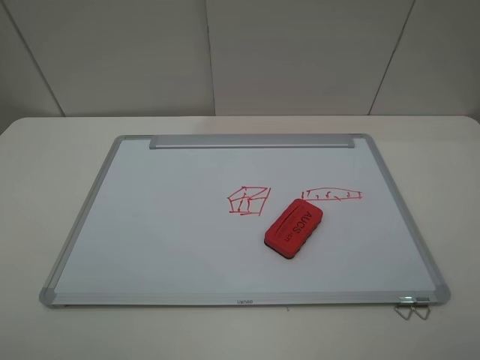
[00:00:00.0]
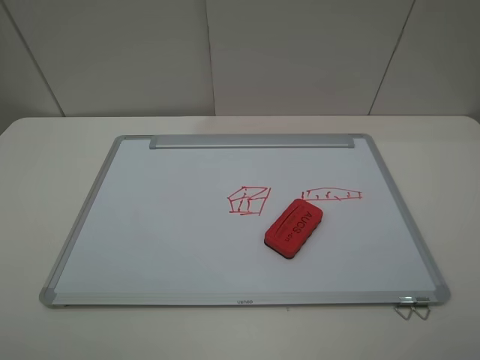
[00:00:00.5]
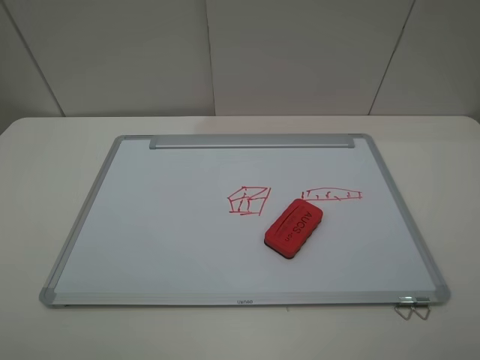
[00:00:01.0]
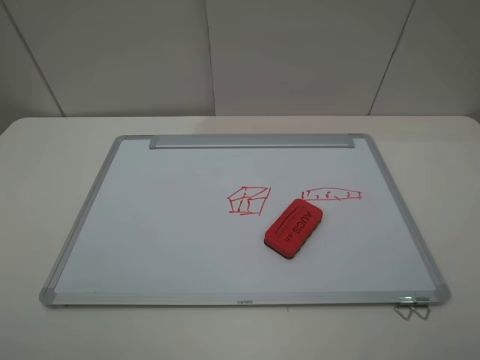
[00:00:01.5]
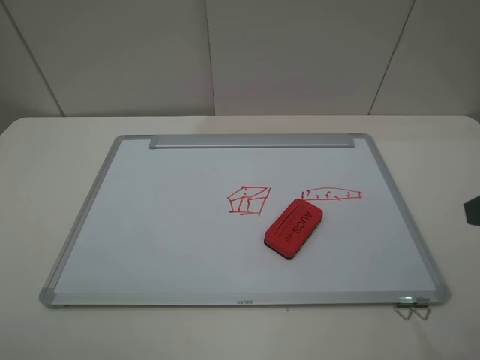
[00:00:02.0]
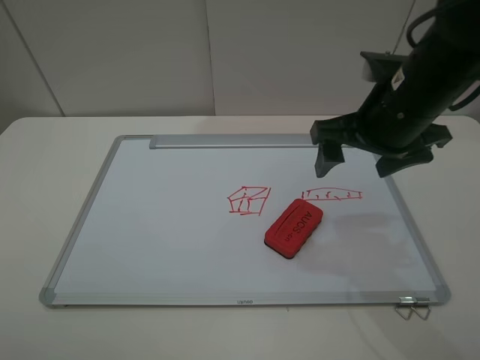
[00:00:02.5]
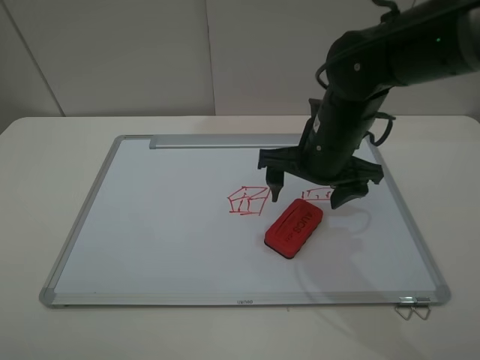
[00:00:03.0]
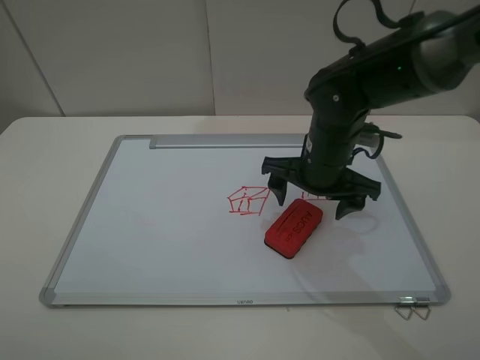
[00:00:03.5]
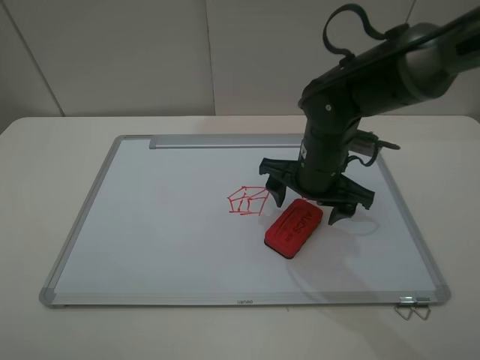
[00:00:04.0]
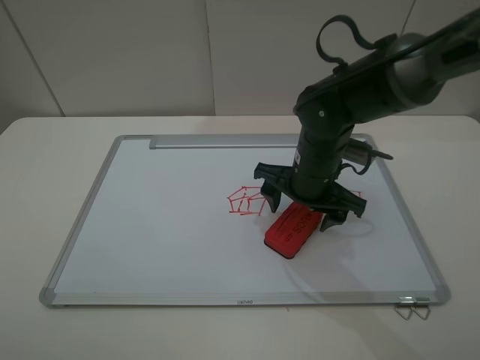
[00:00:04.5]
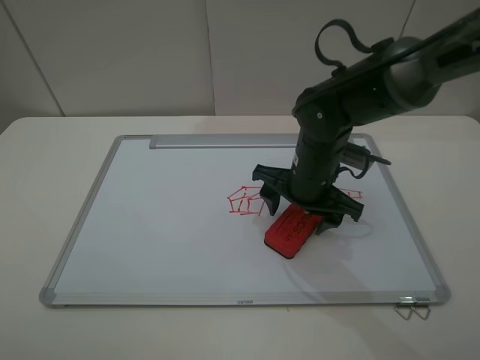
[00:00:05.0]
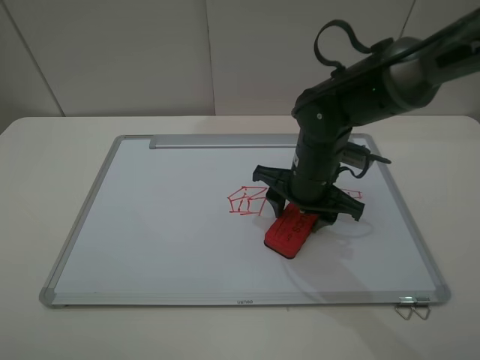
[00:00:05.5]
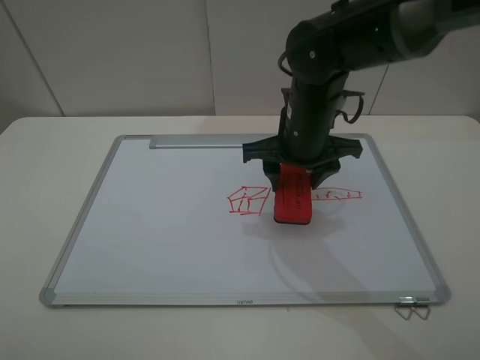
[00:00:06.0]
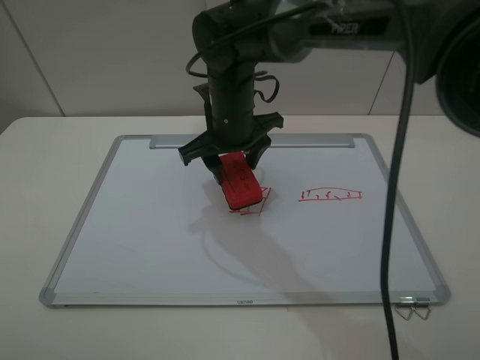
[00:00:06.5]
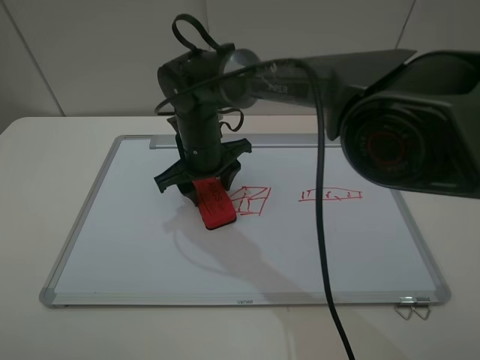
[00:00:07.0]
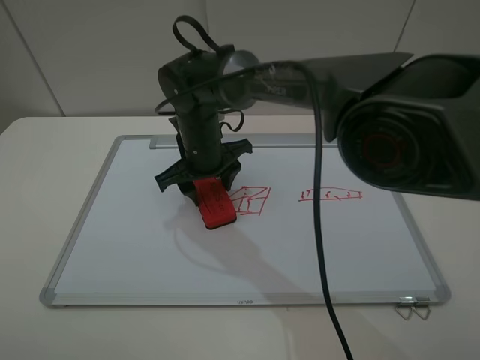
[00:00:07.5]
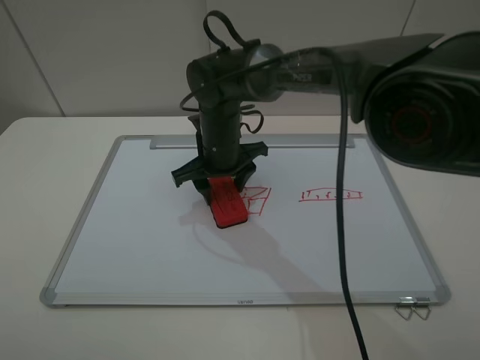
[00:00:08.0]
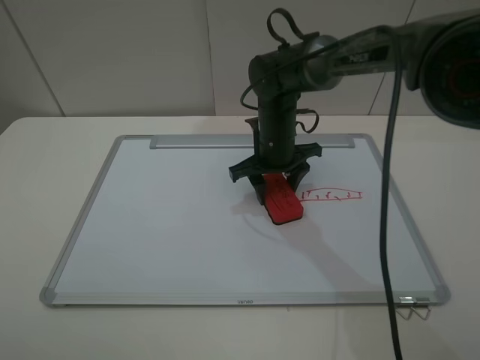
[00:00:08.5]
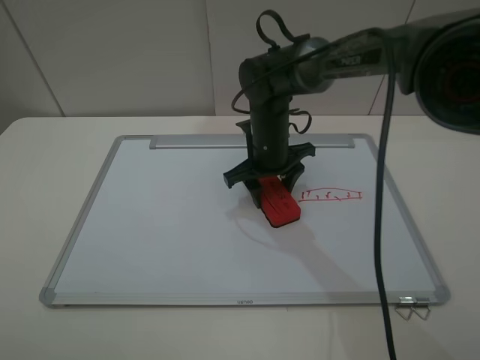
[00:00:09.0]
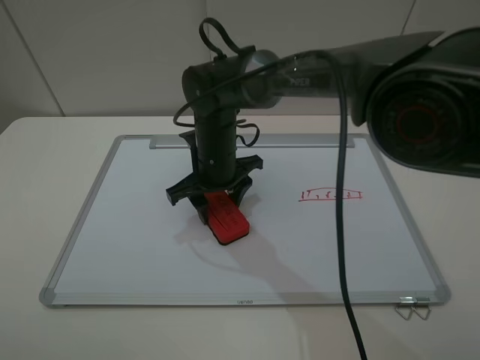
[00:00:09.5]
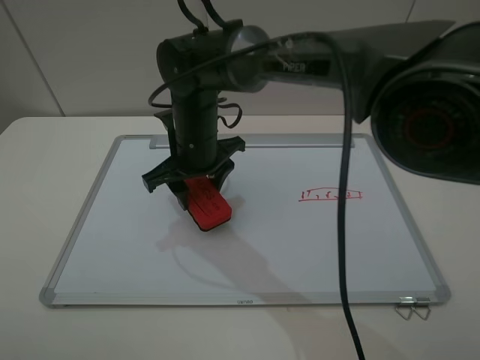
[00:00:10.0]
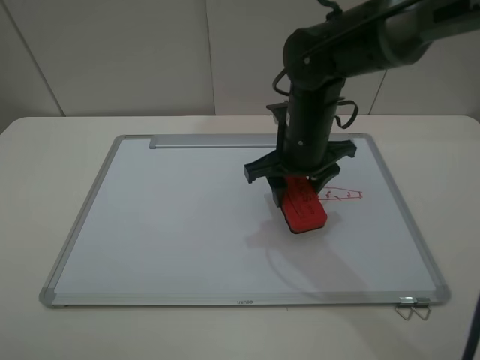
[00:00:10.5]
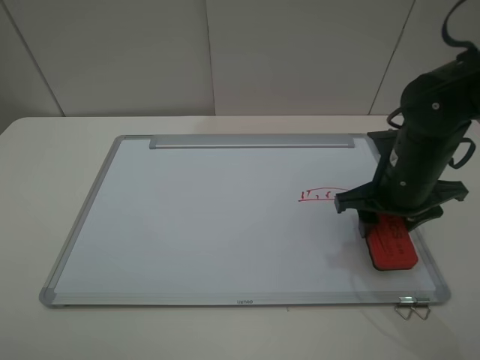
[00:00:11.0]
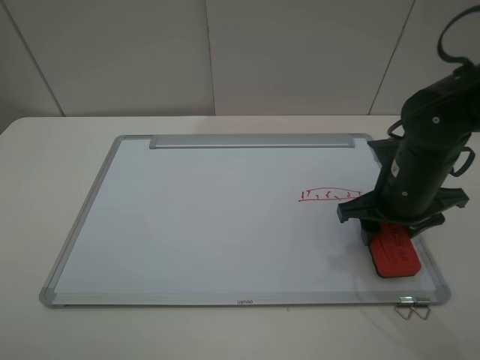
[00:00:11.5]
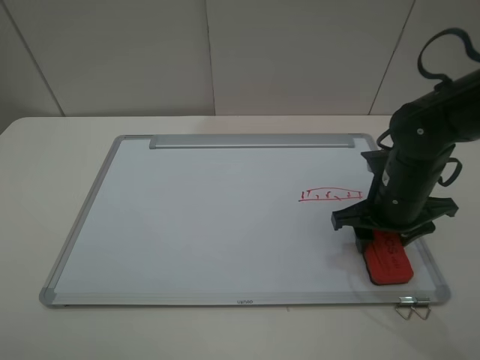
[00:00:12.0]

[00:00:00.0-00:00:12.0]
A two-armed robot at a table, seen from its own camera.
Step, 00:00:00.0 to 00:00:05.0: Grasp the eraser with the right gripper.
Step, 00:00:05.5 to 00:00:10.0: Grasp the eraser and wipe the blackboard with the right gripper.
00:00:02.0 to 00:00:04.0: The right gripper is displaced to the left, forward and downward by roughly 30 cm.
00:00:04.0 to 00:00:06.0: The right gripper ends up approximately 5 cm from where it was, and closes up.
00:00:06.0 to 00:00:08.0: The right gripper is displaced to the left and downward by approximately 15 cm.
00:00:08.0 to 00:00:10.0: The right gripper reaches about 10 cm to the right, then returns.
00:00:10.0 to 00:00:12.0: The right gripper is displaced to the right by approximately 25 cm.

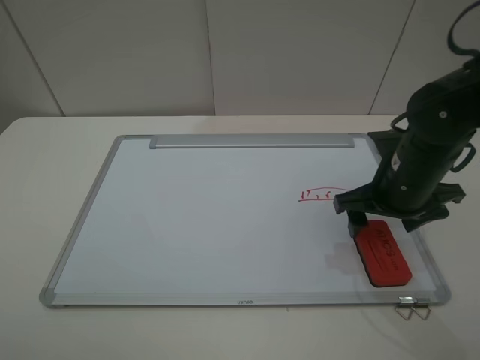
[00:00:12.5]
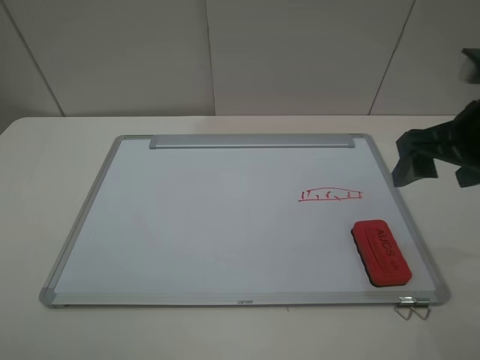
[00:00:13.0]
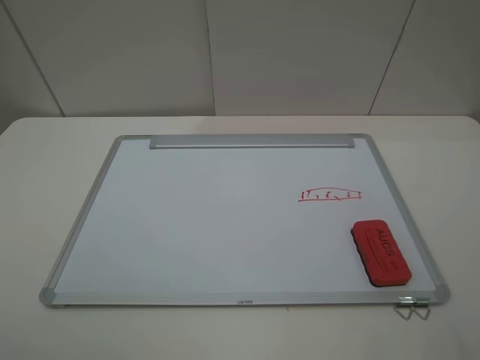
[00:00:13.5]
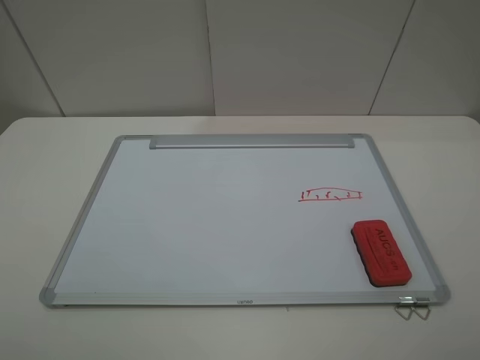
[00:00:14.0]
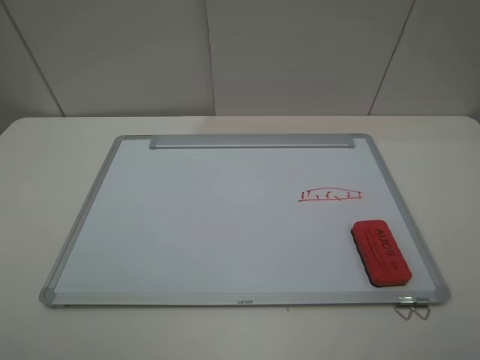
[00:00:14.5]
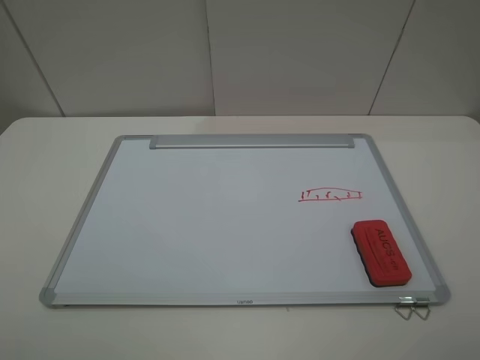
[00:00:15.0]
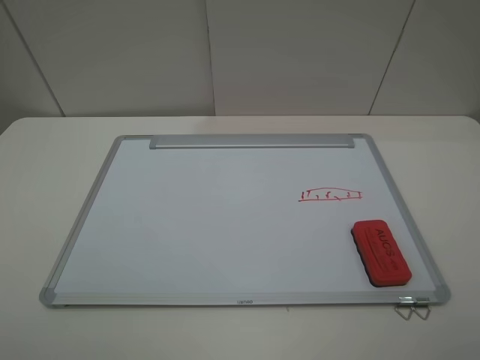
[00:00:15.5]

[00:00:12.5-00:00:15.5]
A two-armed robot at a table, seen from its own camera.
00:00:12.5 to 00:00:14.0: The right gripper heads backward and upward, covering about 30 cm.

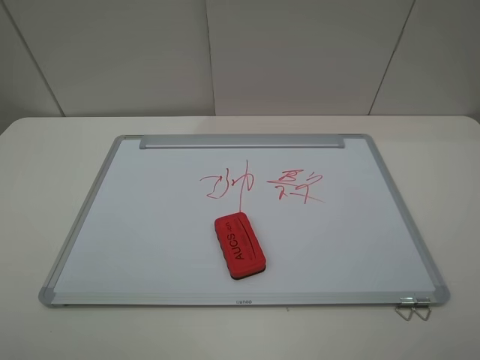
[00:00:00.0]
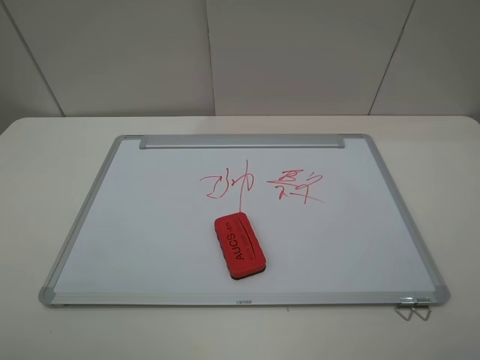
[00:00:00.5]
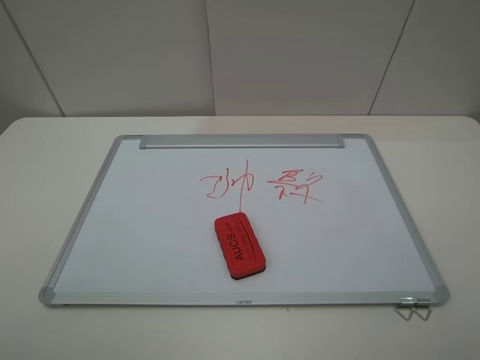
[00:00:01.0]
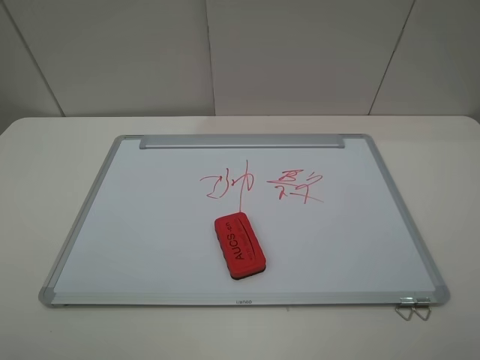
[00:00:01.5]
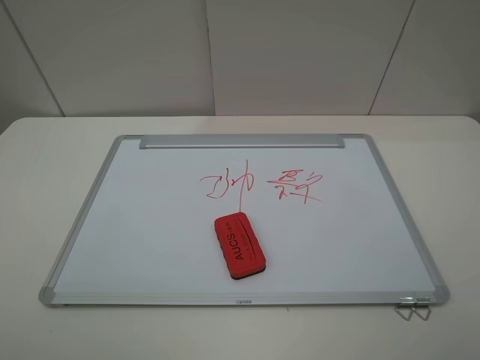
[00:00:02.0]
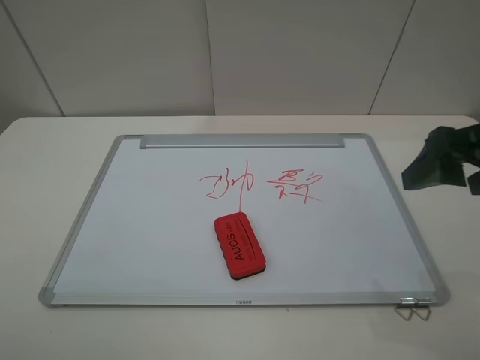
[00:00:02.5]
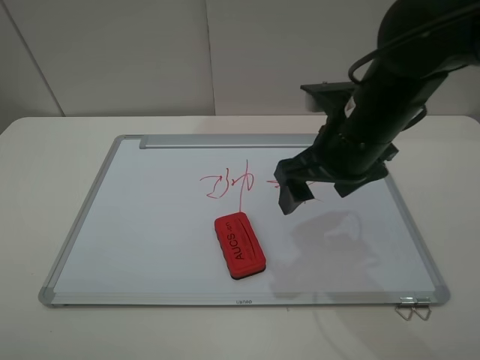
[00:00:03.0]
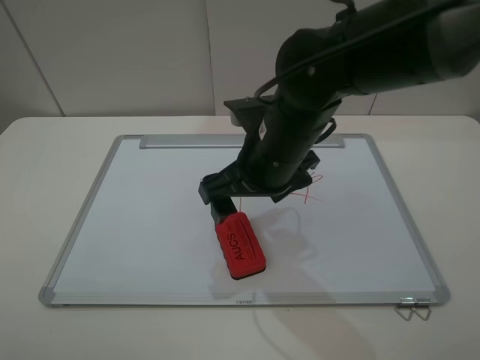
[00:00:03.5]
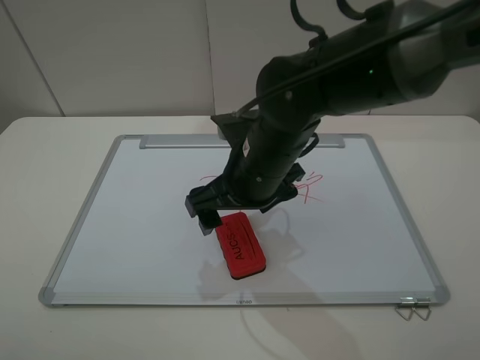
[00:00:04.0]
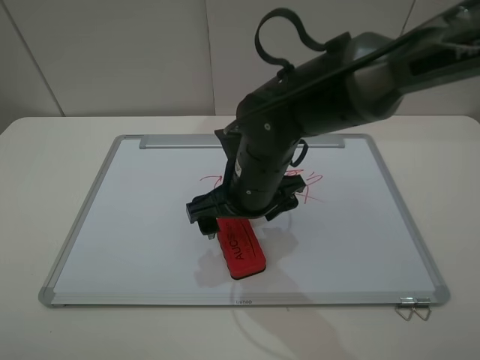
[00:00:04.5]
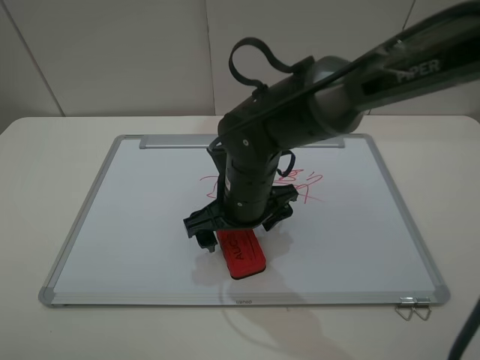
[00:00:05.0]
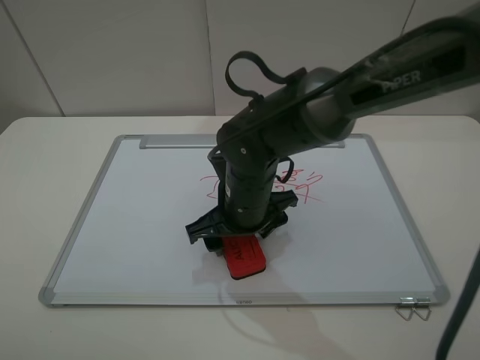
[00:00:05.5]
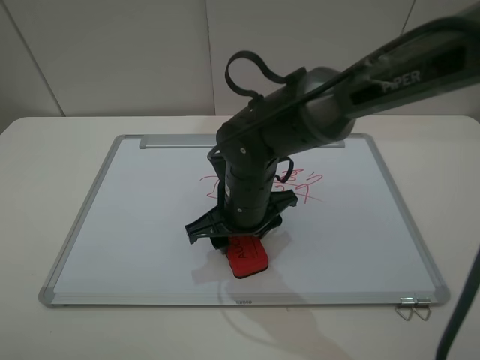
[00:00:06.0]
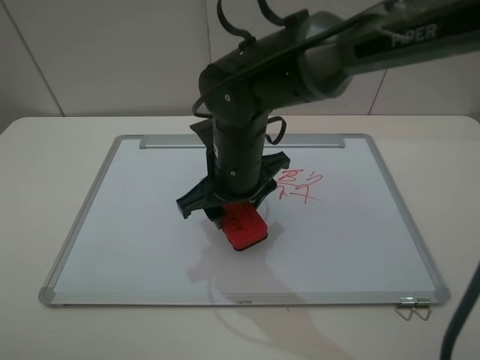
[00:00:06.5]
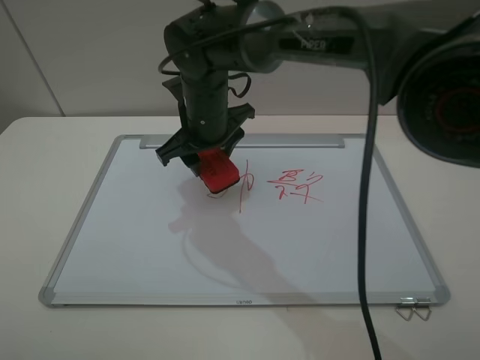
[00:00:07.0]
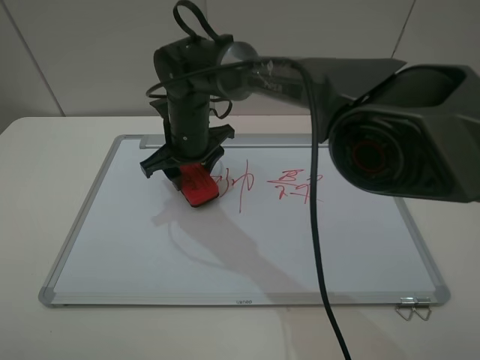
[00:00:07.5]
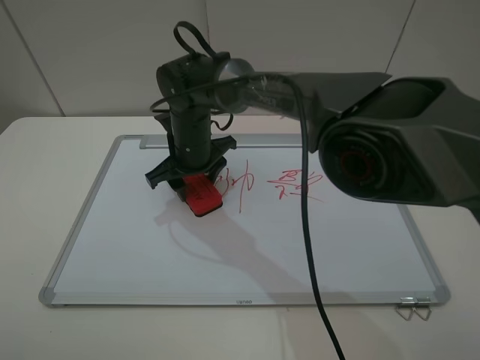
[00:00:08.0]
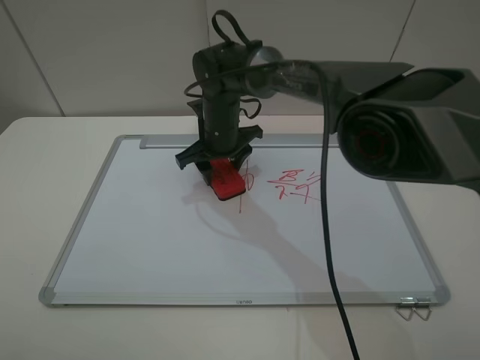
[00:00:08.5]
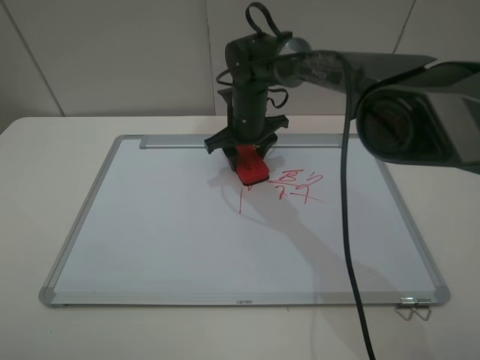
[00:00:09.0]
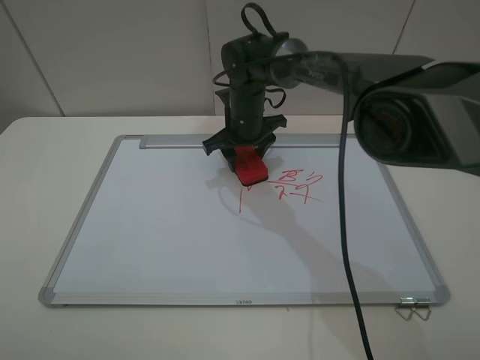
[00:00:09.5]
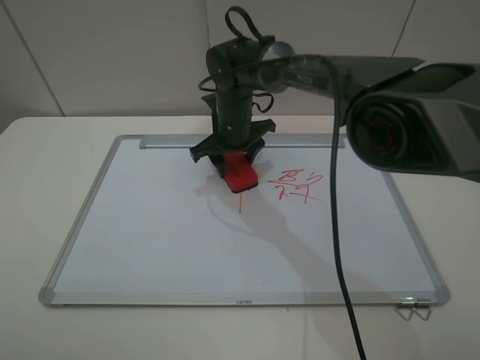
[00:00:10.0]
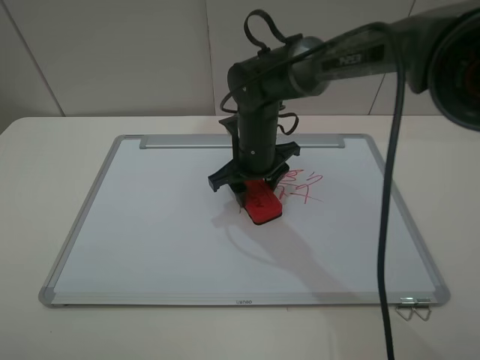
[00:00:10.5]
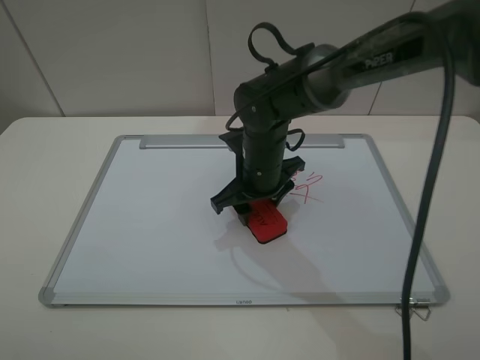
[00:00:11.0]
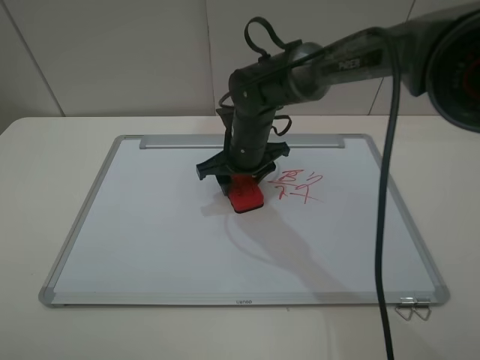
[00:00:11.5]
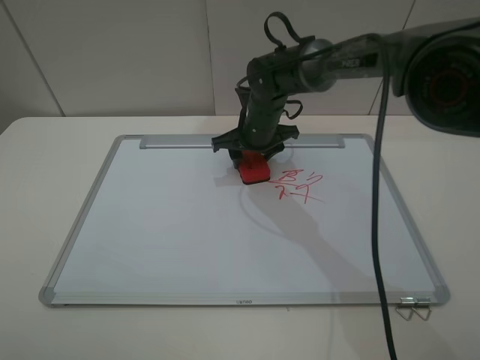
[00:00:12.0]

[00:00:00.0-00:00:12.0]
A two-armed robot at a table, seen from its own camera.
Step, 00:00:00.0 to 00:00:05.5: Grasp the eraser with the right gripper.
00:00:02.0 to 00:00:04.0: The right gripper shifts about 35 cm to the left, forward and downward.
00:00:04.0 to 00:00:06.0: The right gripper shifts roughly 5 cm downward, and closes.
00:00:06.0 to 00:00:08.0: The right gripper shifts about 15 cm forward and to the left.
00:00:08.0 to 00:00:10.0: The right gripper heads to the right, covering approximately 5 cm.
00:00:10.0 to 00:00:12.0: The right gripper moves about 10 cm backward and comes back.
